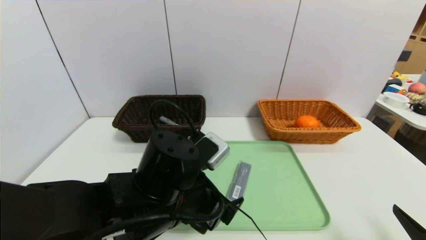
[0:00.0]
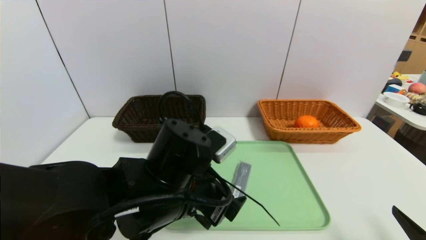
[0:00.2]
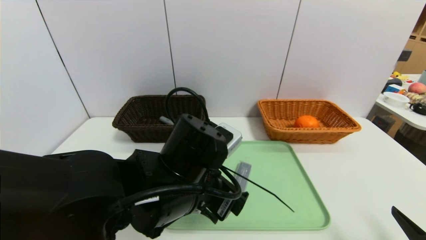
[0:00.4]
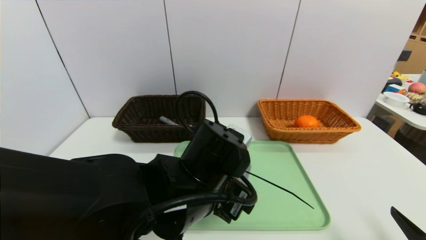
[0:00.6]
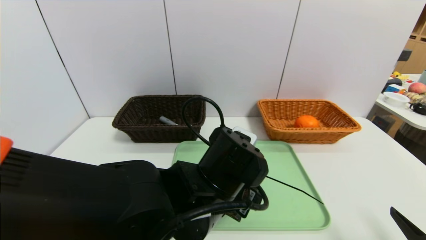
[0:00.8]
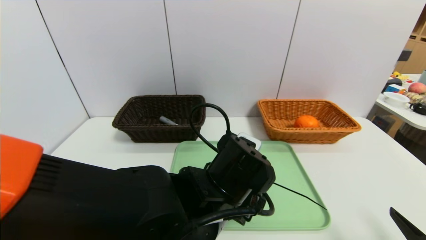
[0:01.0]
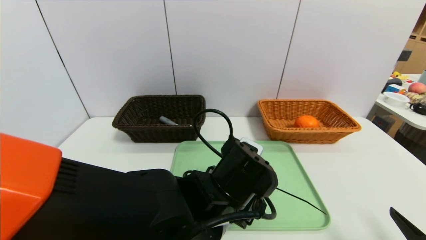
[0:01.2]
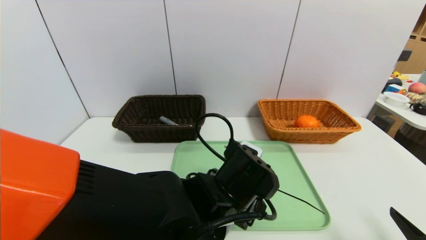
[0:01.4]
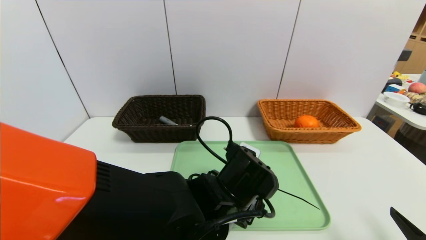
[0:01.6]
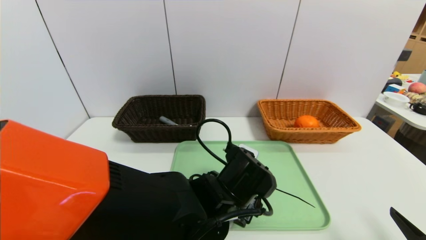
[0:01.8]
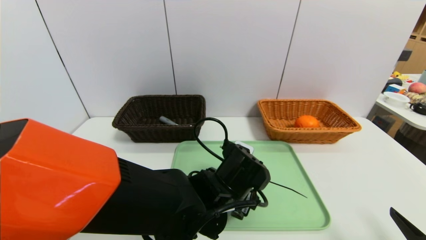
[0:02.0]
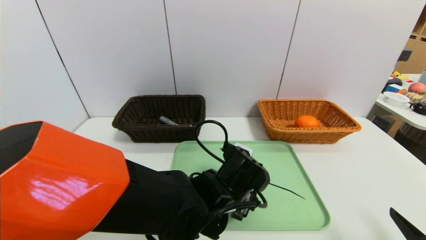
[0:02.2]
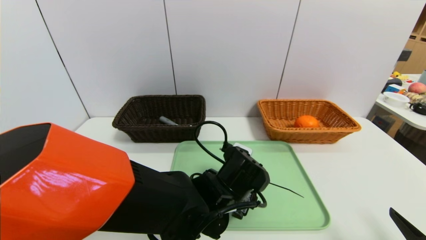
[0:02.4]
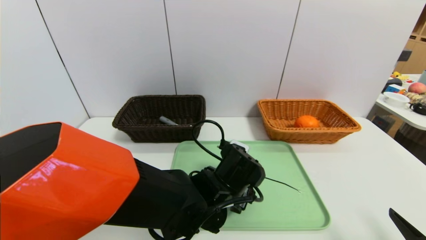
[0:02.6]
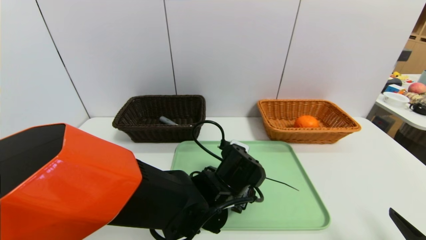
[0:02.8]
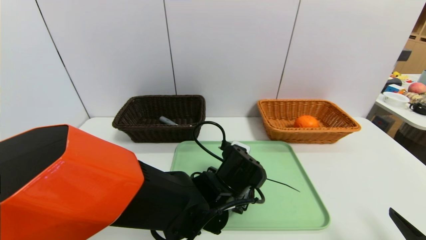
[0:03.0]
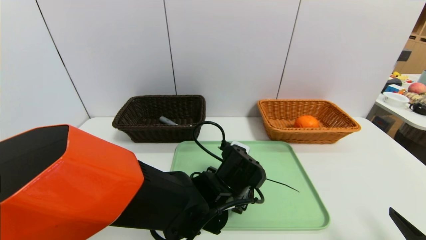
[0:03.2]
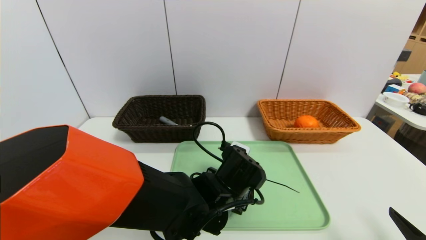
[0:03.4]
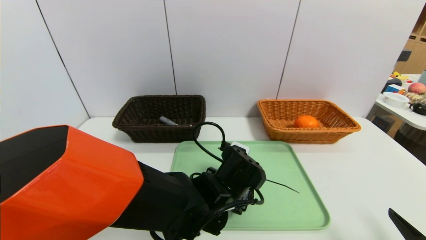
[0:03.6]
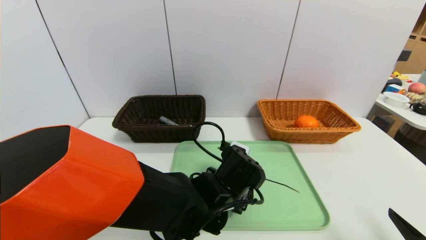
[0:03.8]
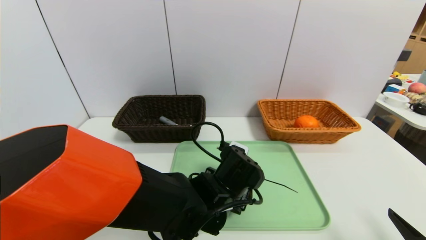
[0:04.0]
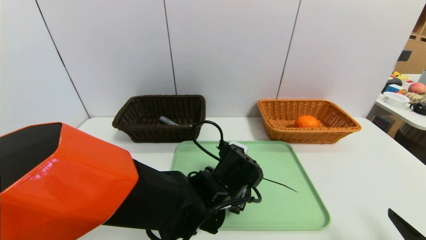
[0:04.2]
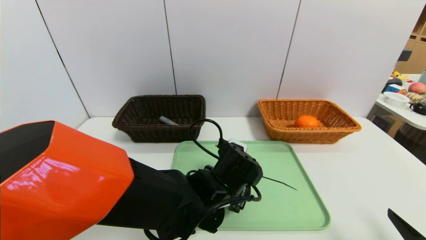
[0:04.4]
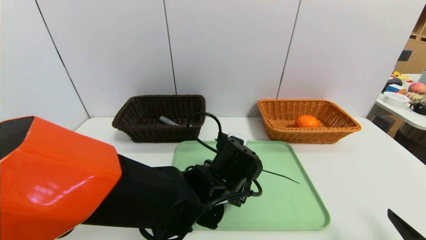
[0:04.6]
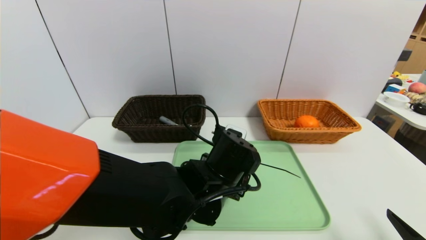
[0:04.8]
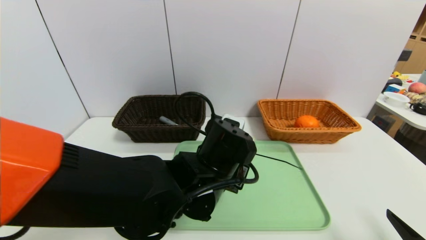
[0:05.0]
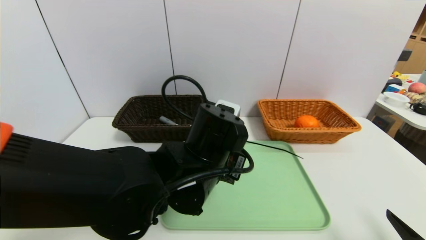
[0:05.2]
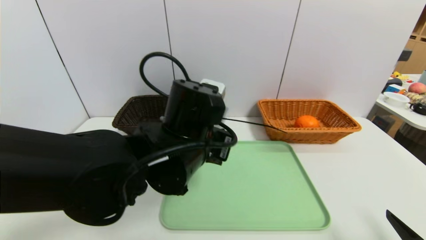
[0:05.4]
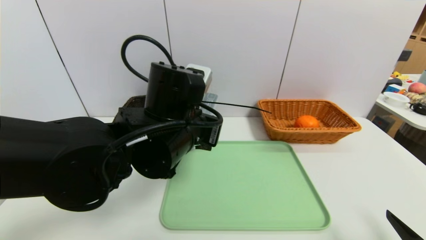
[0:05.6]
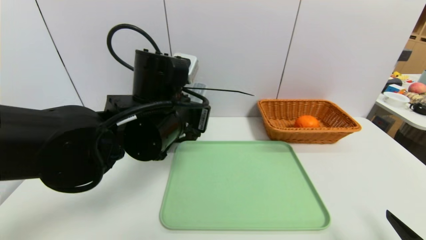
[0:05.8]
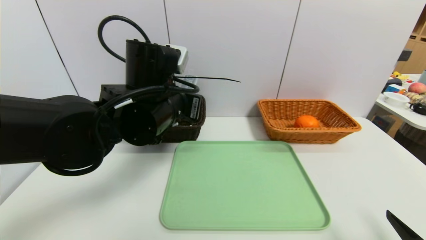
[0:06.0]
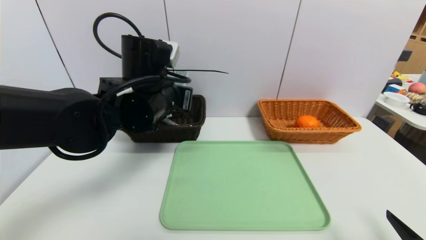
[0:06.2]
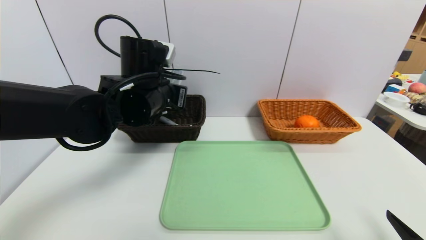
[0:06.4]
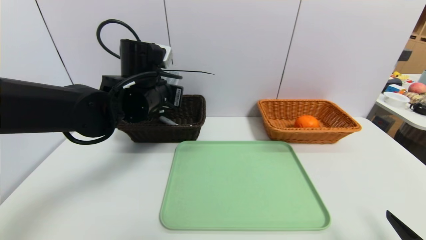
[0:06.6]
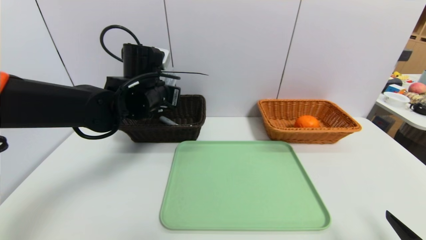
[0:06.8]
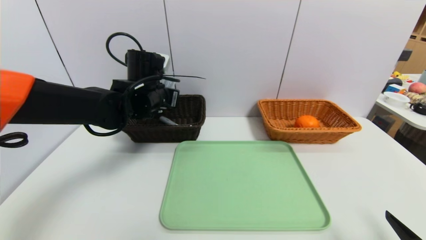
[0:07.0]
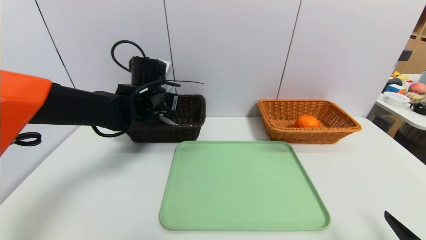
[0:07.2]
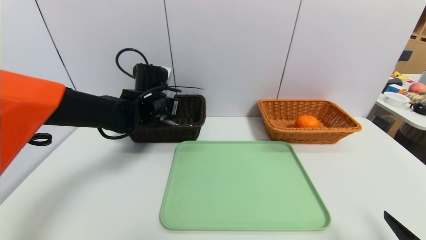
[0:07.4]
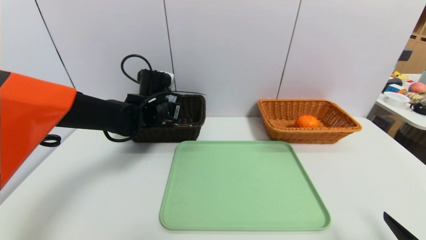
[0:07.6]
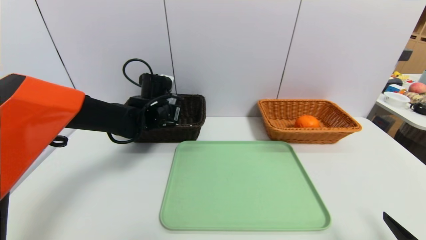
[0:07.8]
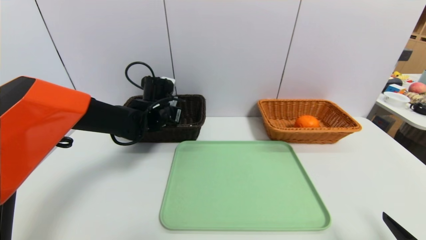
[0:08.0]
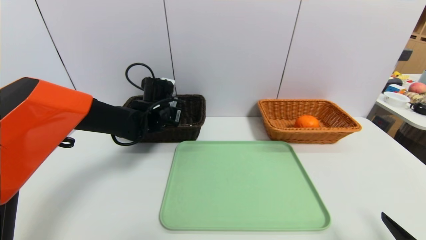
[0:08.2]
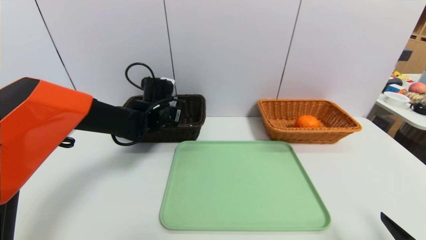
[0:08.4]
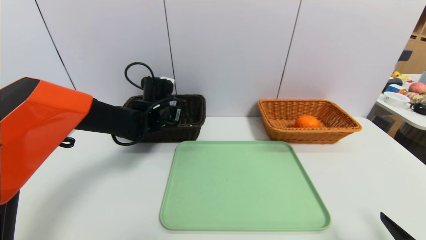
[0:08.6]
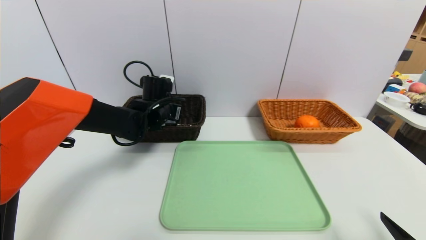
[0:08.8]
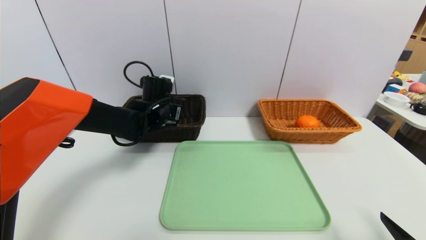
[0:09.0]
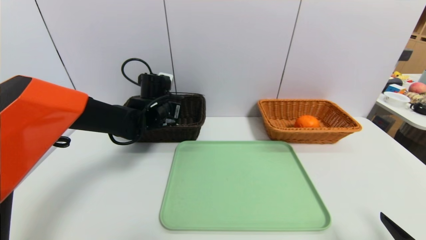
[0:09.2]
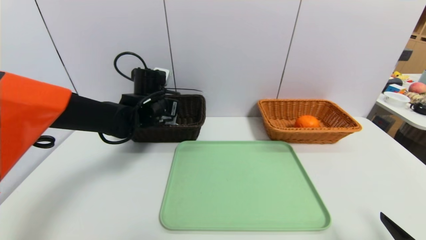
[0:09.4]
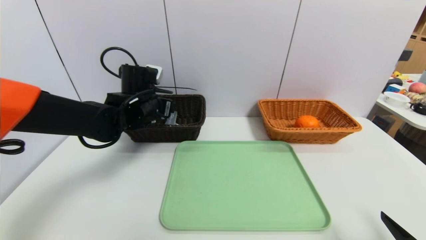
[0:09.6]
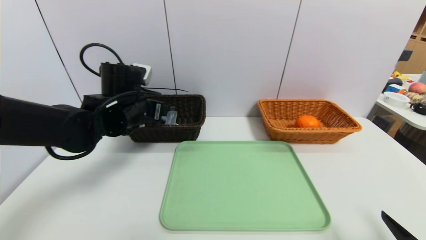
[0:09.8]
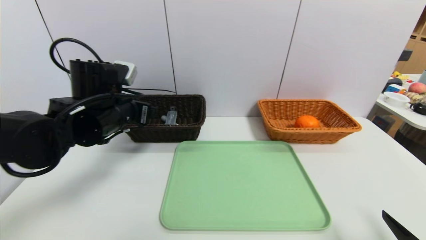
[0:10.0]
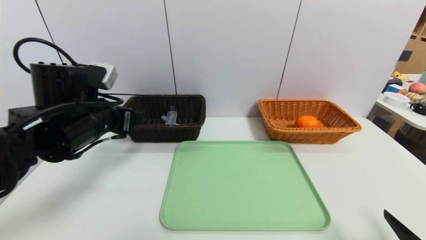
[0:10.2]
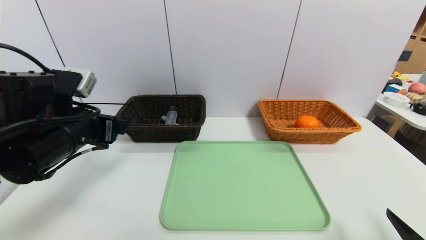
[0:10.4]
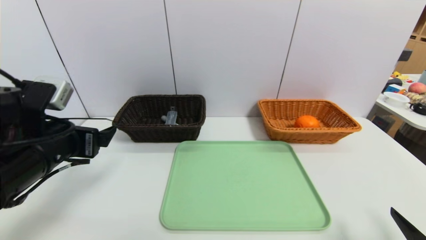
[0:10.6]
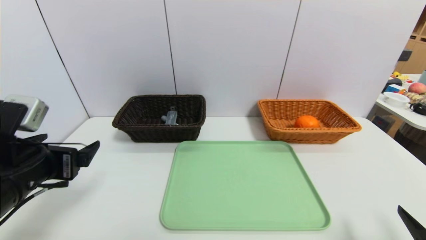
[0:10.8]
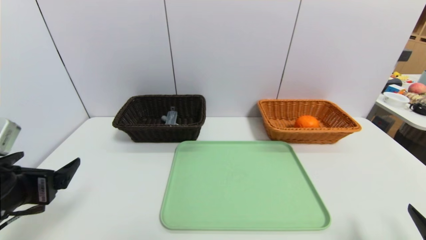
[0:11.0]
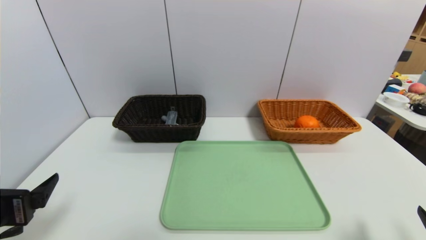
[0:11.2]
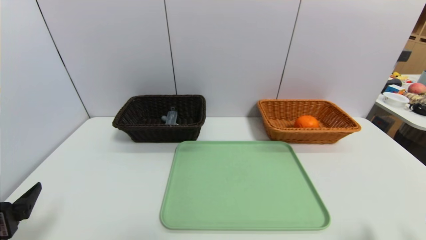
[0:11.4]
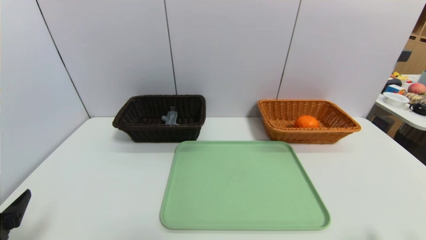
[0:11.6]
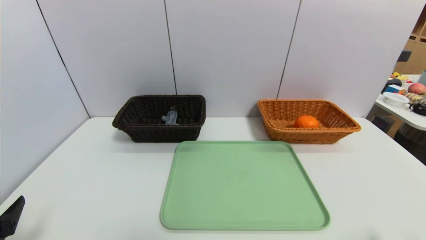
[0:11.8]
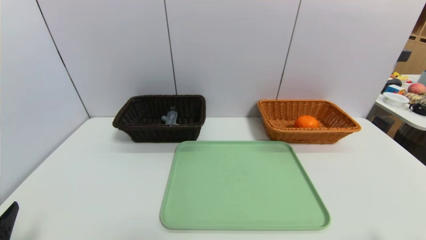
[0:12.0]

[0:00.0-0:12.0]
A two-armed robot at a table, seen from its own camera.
Task of the whole recording: place the food in the right basket with the right gripper, and place the non food items in the left basket with the left gripper.
Step, 0.0 to 9.4 s: Grasp the compass and put it in the left basket.
0.0 to 1.6 s: The left gripper shifts about 10 cm to the right.
1.6 to 3.0 s: The left gripper closes.
3.0 to 4.4 s: The left gripper closes up.
4.4 to 6.0 s: The left gripper is displaced upward and to the left by approximately 20 cm.
6.0 to 7.6 s: The left gripper shifts approximately 15 cm forward and downward.
7.6 to 9.0 s: The left gripper opens.
9.0 to 10.4 s: The left gripper heads backward and to the left, covering about 20 cm, and opens its fingers.
10.4 to 12.0 s: The left gripper is displaced backward, downward and to the left by about 20 cm.

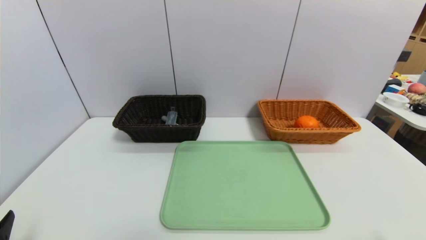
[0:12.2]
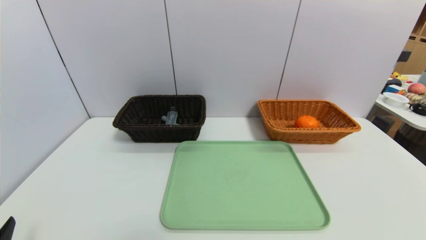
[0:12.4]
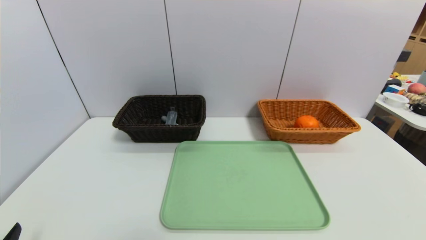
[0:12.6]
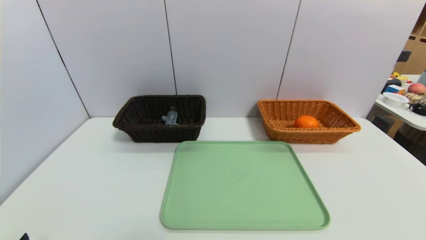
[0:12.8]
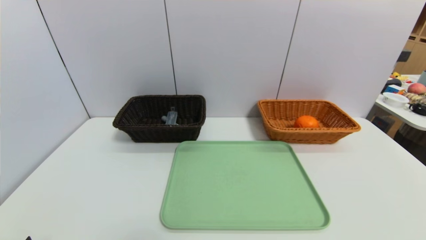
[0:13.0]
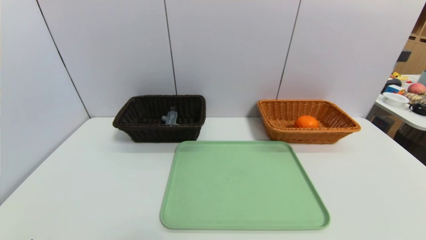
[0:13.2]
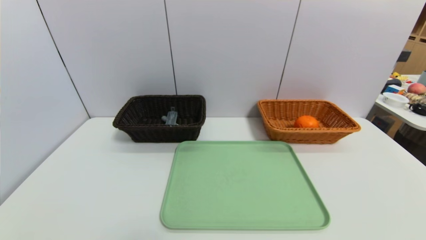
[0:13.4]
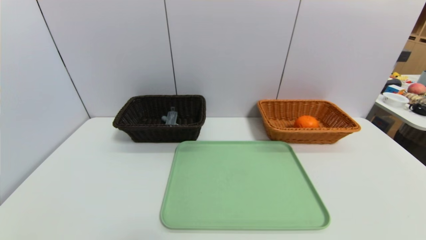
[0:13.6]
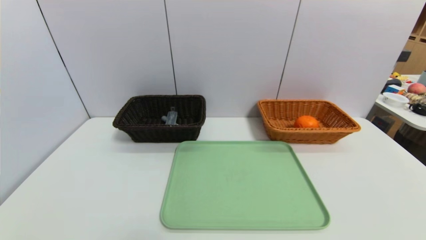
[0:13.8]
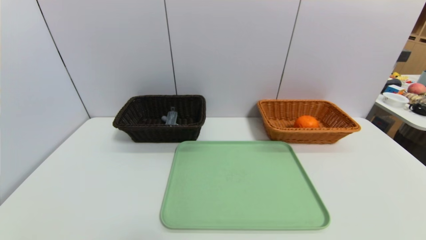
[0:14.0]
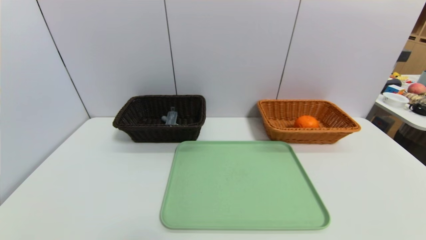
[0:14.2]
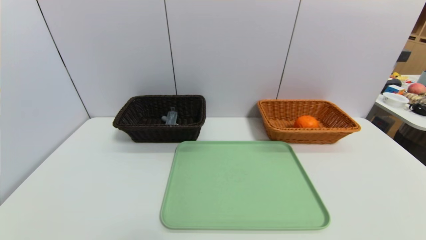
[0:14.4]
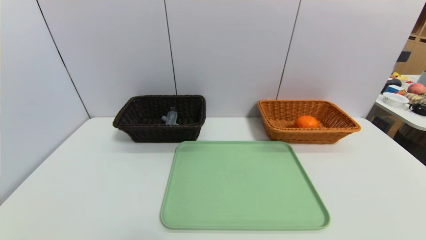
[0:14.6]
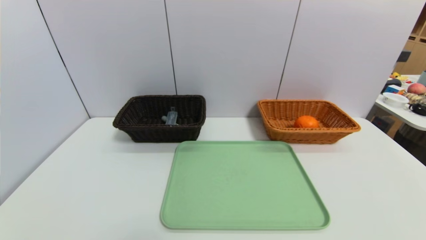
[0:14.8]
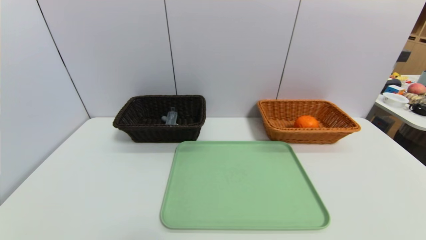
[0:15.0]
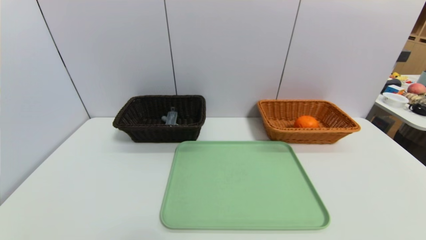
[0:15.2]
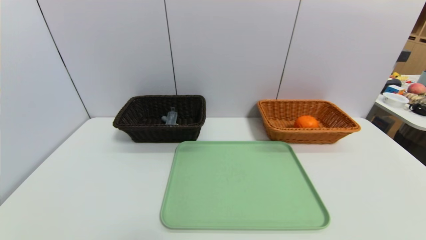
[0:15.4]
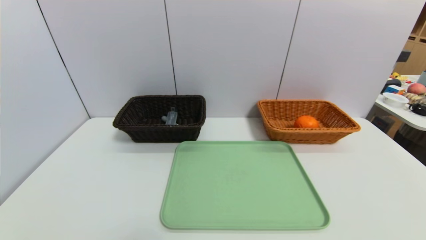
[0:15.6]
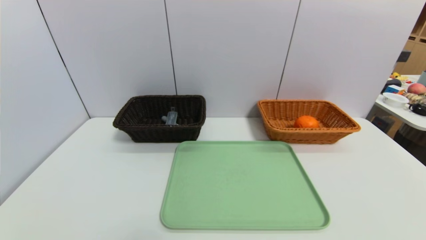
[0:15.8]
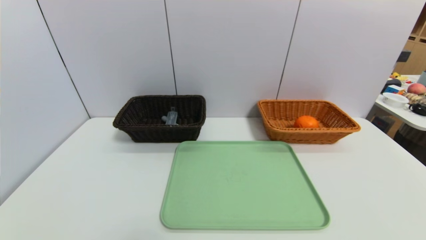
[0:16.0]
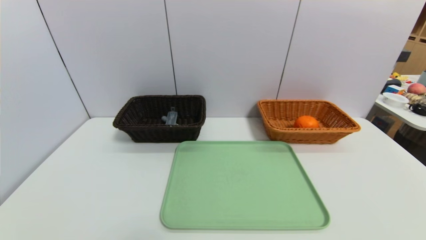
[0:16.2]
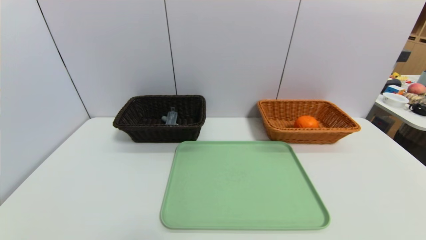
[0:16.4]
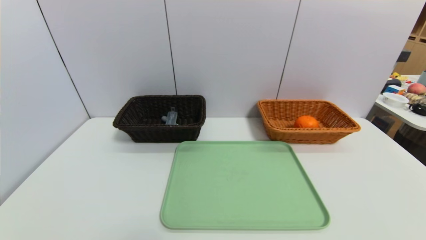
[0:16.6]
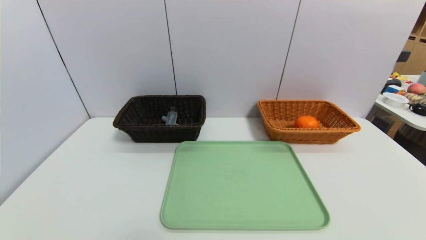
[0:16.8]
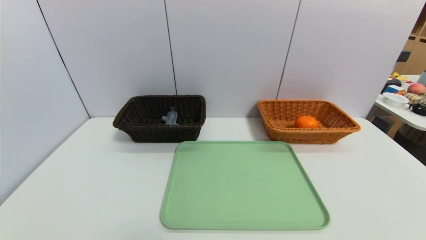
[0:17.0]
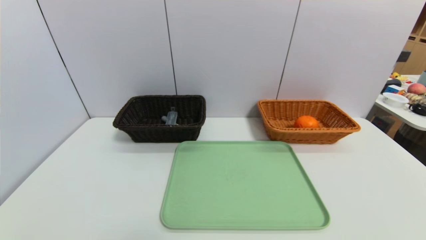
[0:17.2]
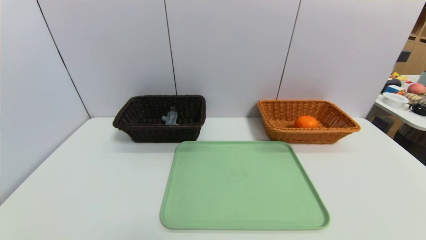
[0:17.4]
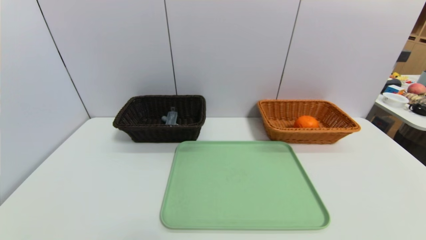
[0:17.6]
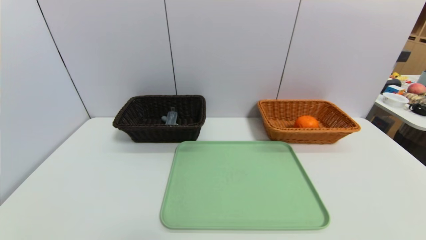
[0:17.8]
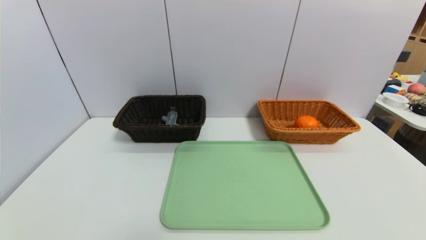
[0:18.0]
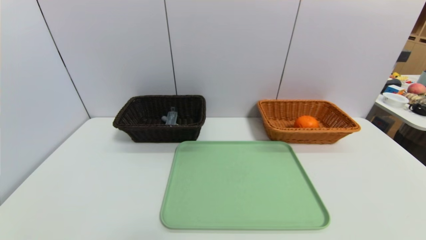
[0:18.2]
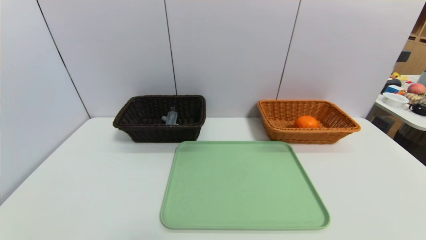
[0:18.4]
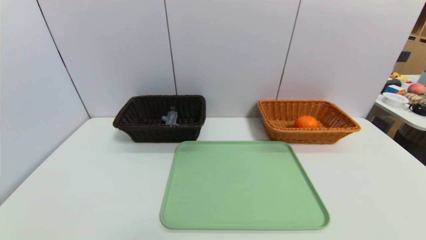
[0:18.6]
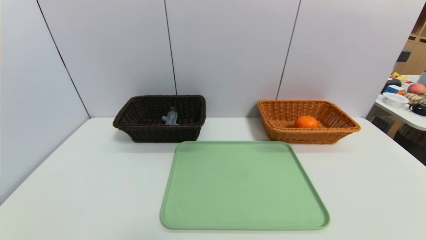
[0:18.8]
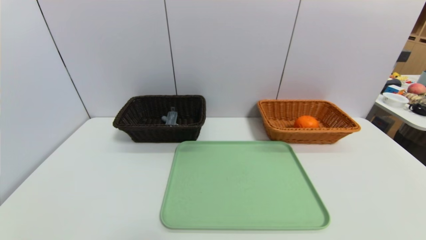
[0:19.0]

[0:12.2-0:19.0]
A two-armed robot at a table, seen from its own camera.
Task of the whole recording: place the food in the right basket with the right gripper, and place the non food items in the left basket with the left gripper.
17.6 to 19.0 s: Neither gripper changes place.
